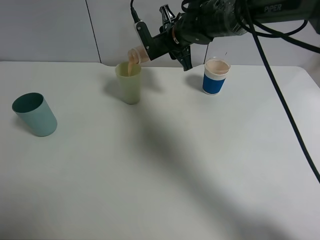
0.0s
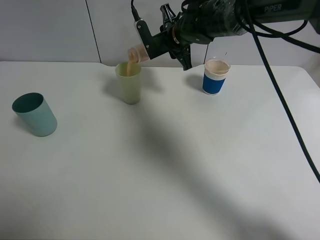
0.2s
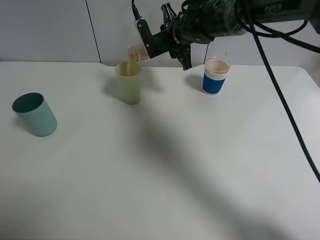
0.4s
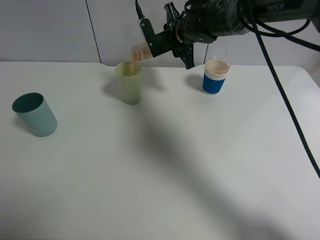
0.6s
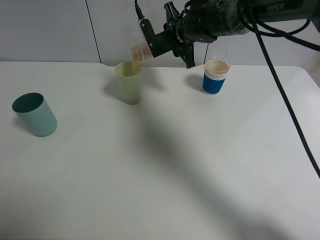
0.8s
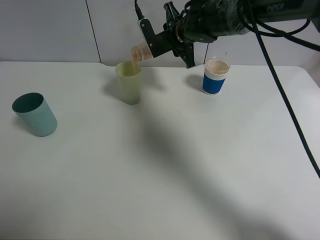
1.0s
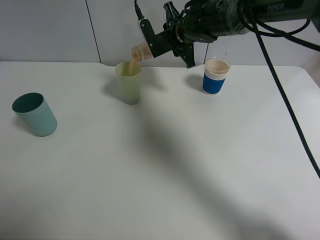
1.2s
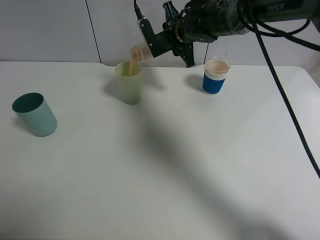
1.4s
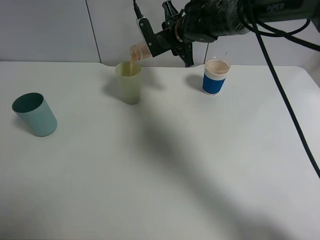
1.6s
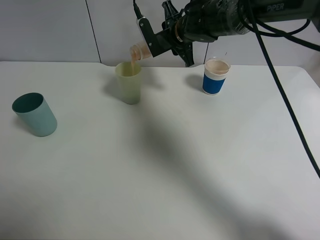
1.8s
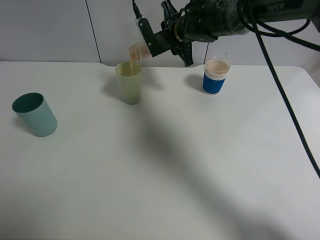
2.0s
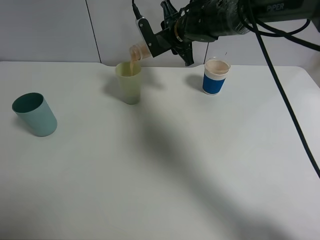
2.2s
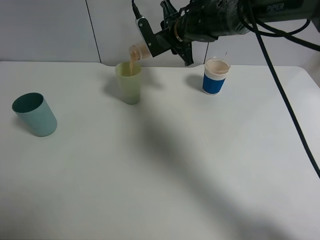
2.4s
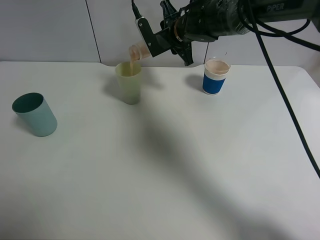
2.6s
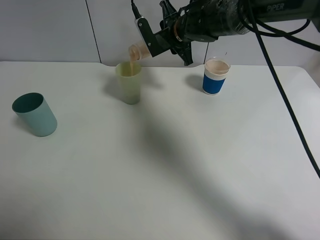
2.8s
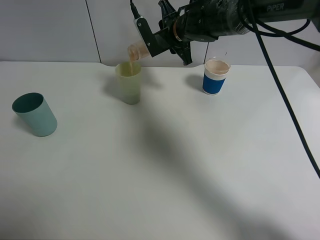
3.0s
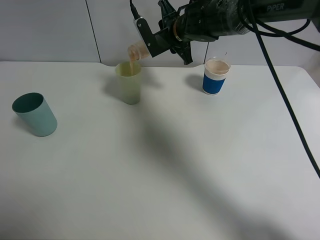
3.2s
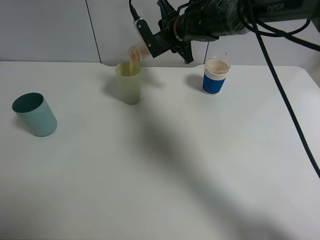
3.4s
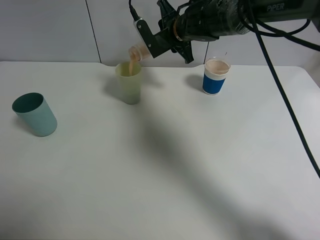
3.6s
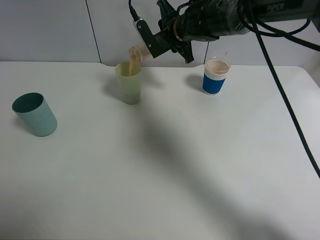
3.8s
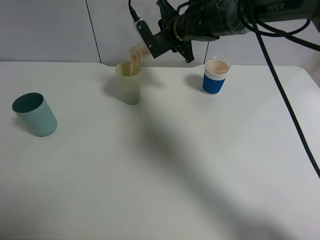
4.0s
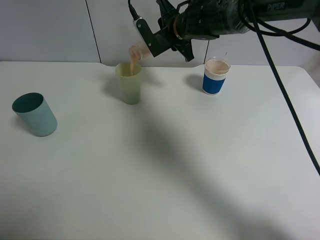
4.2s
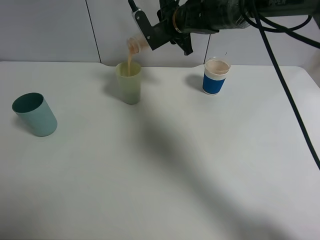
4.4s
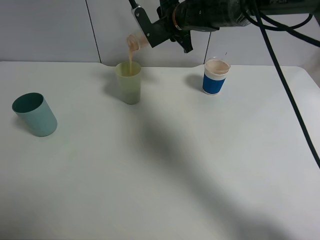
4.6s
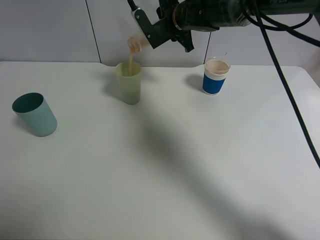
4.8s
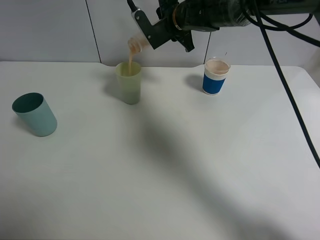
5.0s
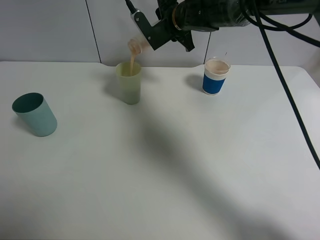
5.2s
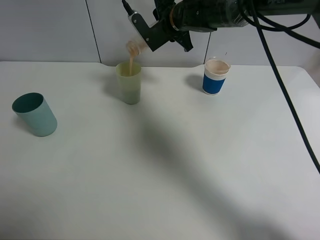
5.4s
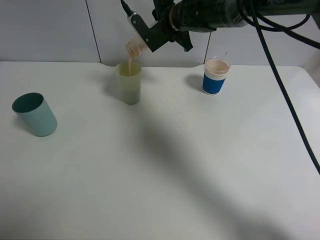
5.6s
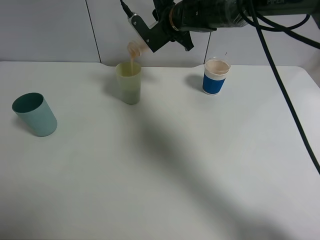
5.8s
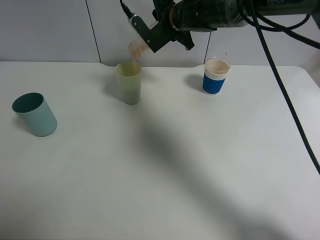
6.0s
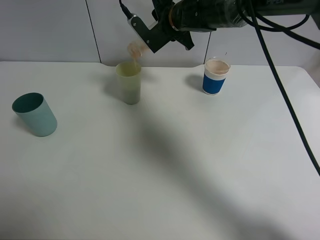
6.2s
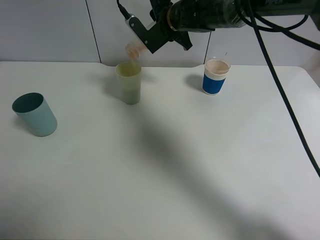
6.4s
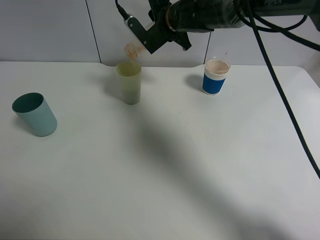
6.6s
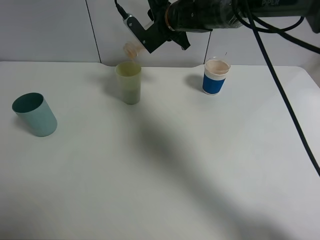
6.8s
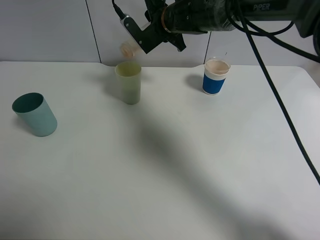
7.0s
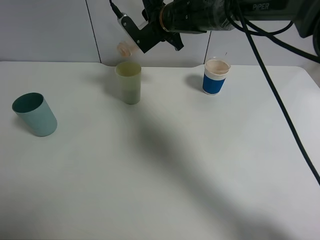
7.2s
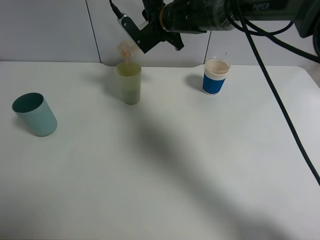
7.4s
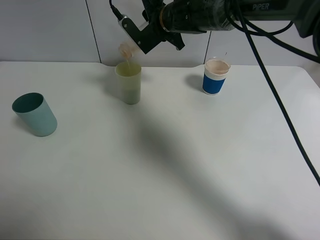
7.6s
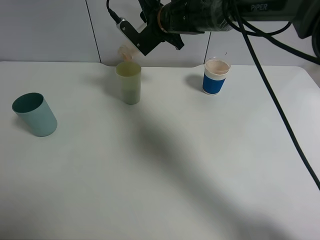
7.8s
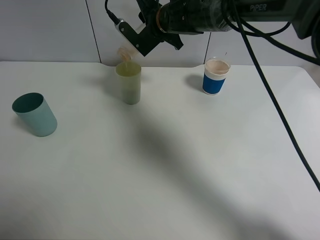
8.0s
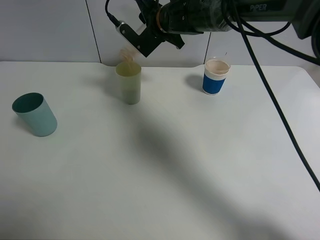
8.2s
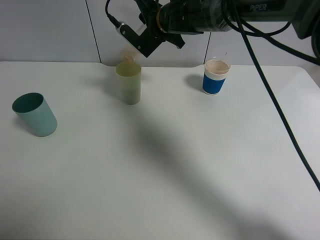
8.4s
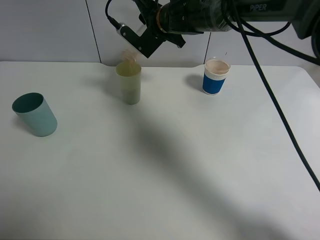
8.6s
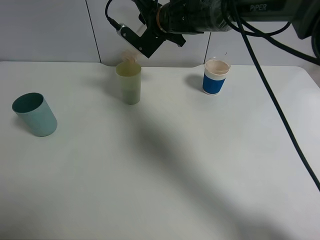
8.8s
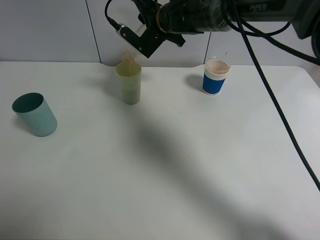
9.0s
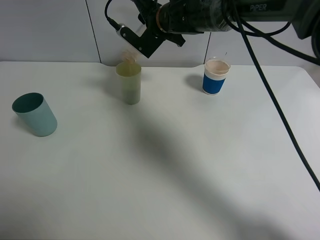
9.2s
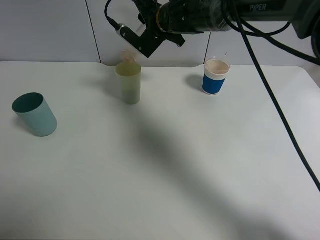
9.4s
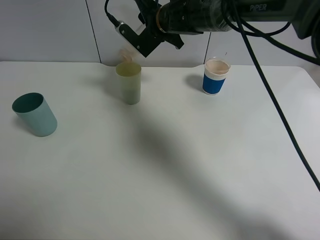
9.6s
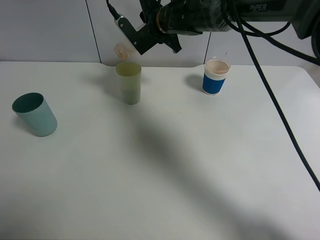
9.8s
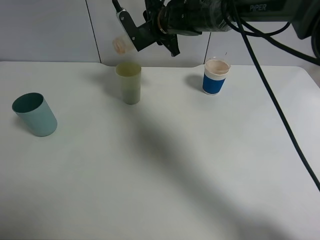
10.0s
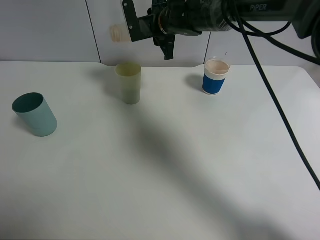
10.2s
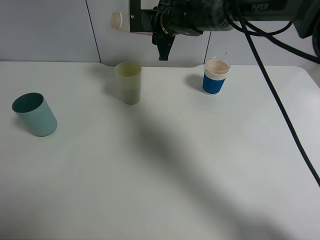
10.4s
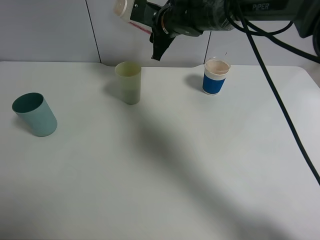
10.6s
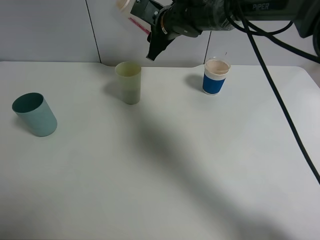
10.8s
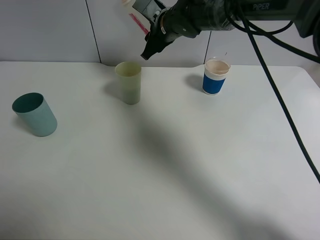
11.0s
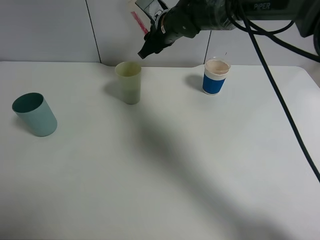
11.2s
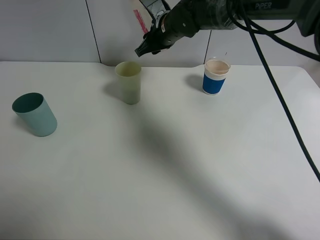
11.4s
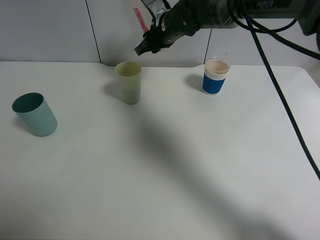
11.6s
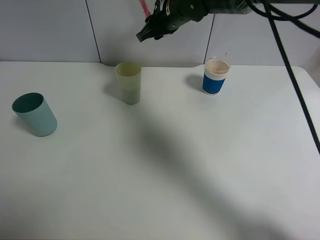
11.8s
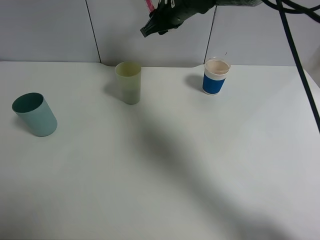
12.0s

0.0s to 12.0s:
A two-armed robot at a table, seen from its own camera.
Task of the whole recording: use a clamp to hold the bottle of the drink, pour the beverage into a random cup, then clamp the cup containing the drink and pour the drink into another random cup.
Step, 0.0s to 10.6s: Pour the drink into the green plastic cup with right gripper.
0.0s to 1.6s: The two grippers keep their place.
1.6s to 3.0s: Both grippers stay put.
3.0s to 7.6s: There are only small adjustments of the grippers.
7.6s to 9.0s: There are only small adjustments of the grippers.

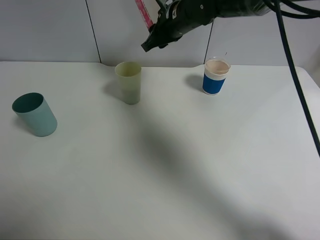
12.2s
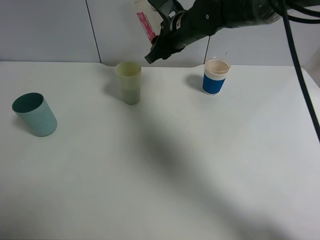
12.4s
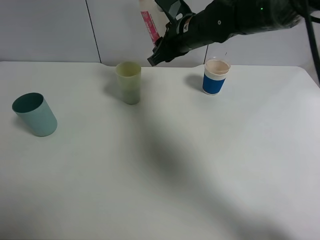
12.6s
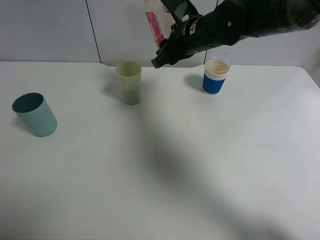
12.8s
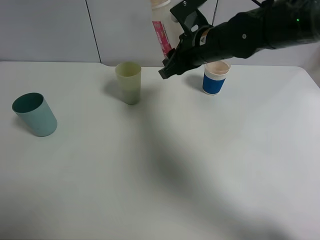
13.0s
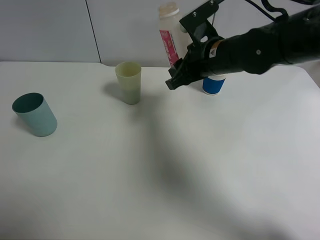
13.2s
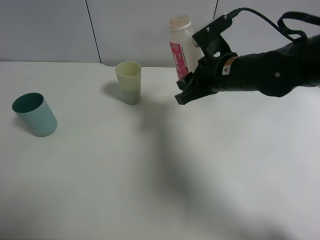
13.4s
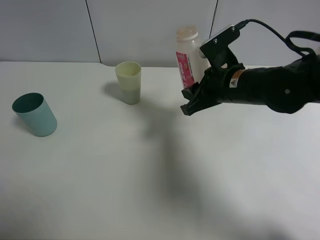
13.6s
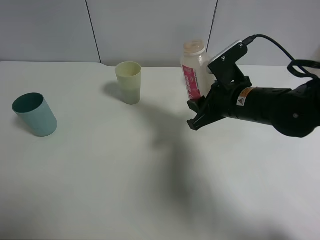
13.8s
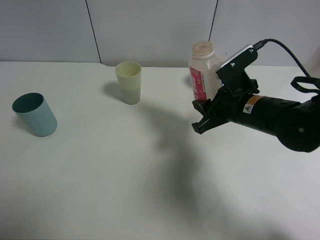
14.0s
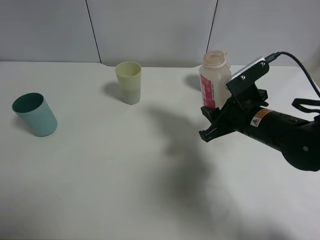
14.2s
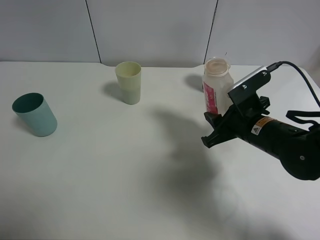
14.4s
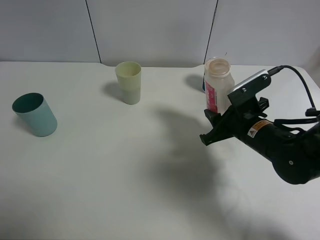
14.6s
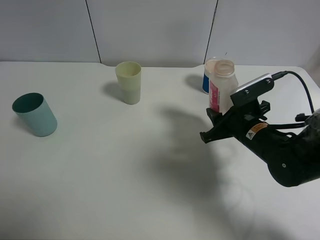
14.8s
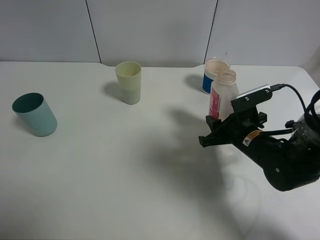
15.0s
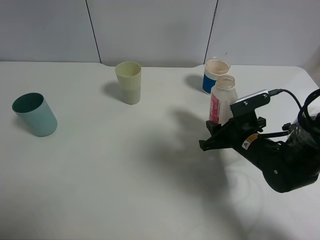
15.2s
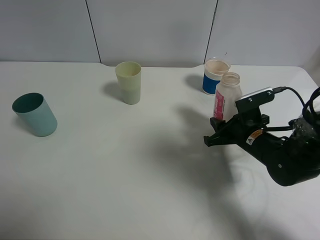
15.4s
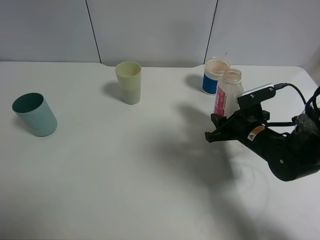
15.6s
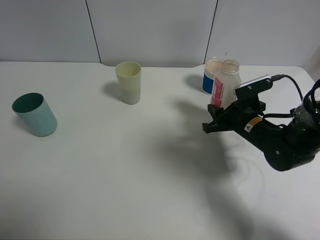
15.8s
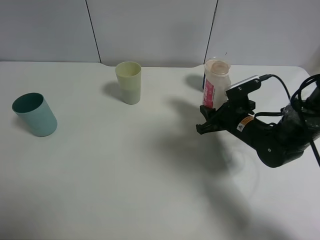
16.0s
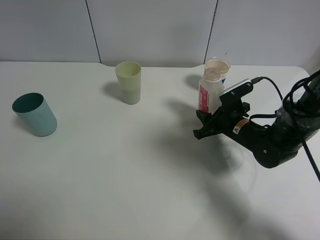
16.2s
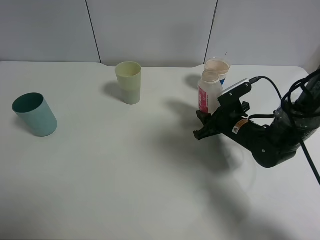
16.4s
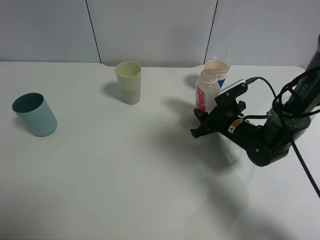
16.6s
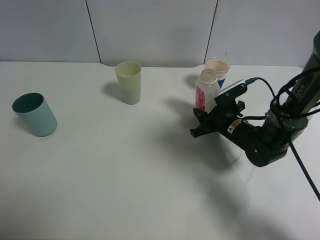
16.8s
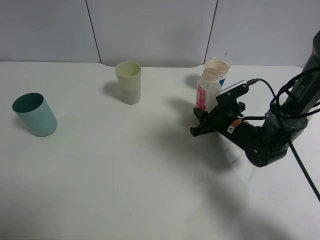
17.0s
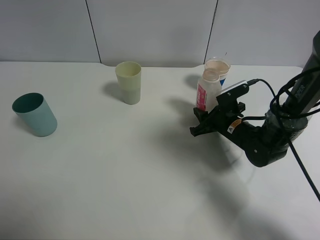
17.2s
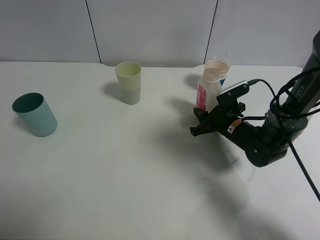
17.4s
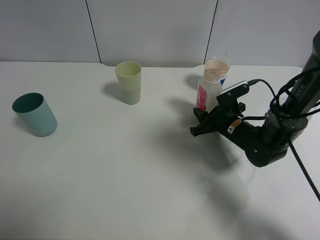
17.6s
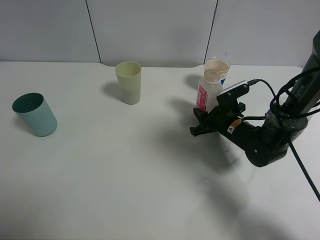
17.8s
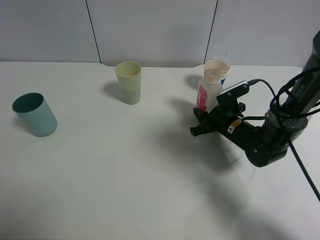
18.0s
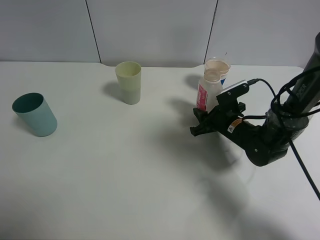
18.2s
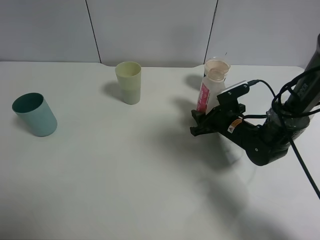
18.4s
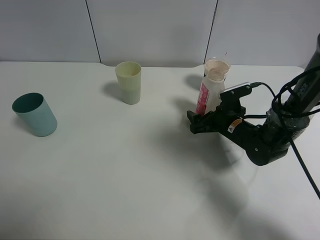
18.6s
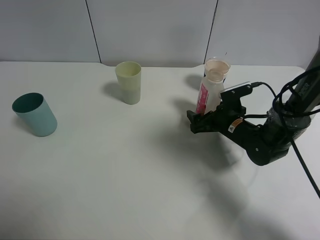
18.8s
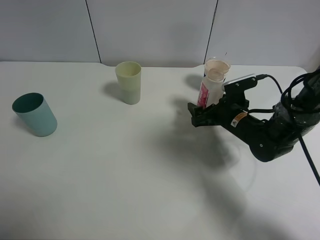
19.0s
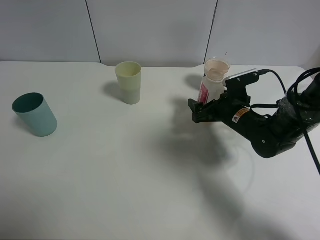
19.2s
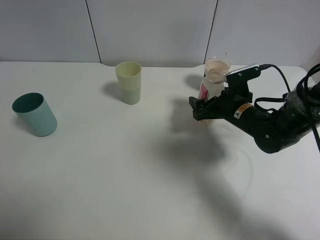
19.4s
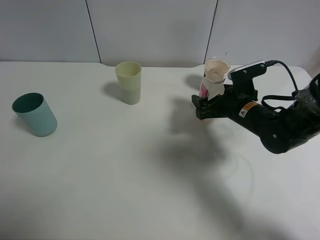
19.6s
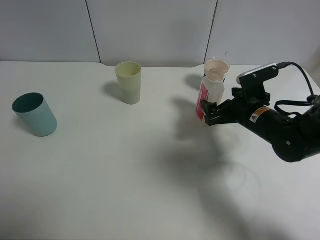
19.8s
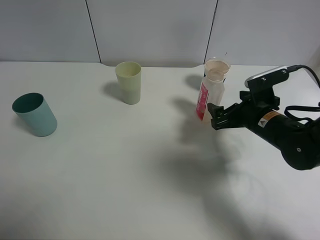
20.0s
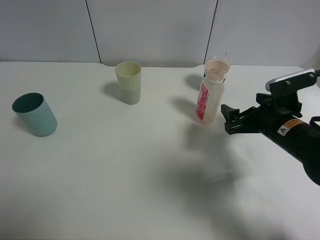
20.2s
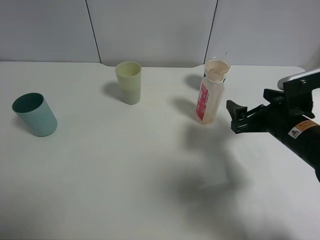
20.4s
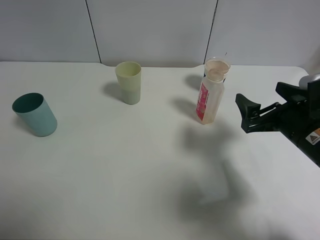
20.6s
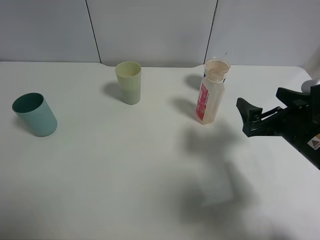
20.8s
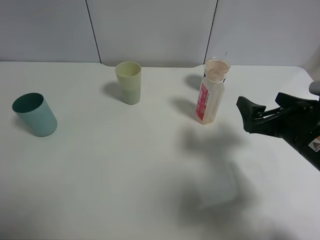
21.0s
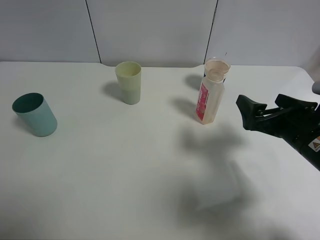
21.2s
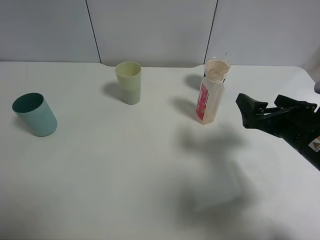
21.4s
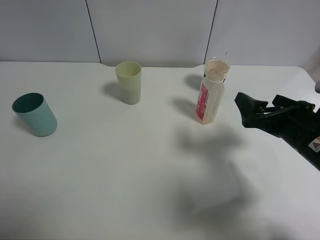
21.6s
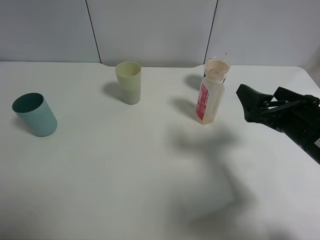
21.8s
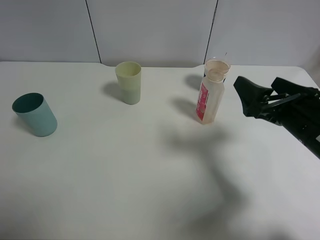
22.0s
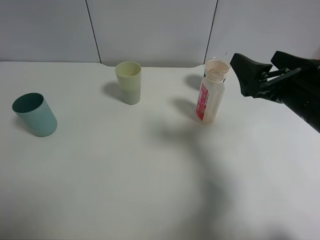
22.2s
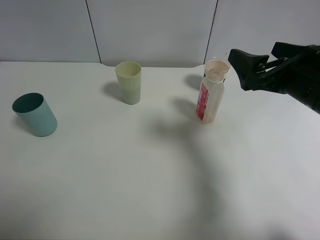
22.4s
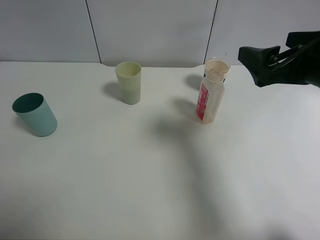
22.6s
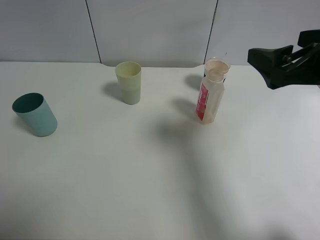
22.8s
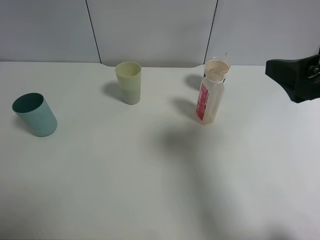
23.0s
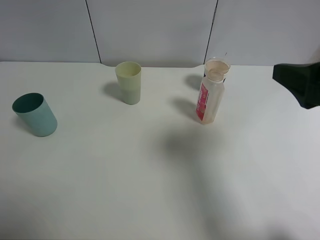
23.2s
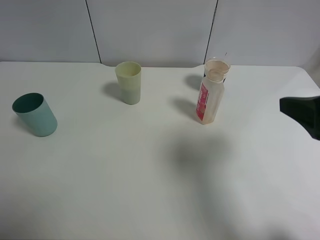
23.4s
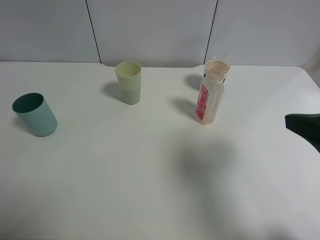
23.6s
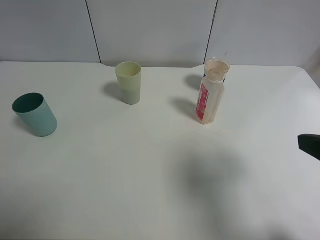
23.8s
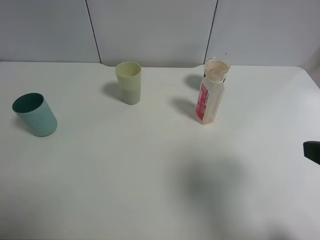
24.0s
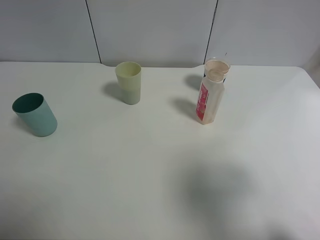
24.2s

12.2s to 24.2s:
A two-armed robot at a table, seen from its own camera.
Task of the whole recording: use a clamp to hold the bottle of the drink, pour the beverage into a random cup, then clamp the cup containing the drink and pour the drink into another random cup.
Step, 12.2s to 20.0s: Place the drink bottle on the table with right gripper.
12.2s to 13.8s: The right gripper shifts roughly 20 cm backward, to the right and downward.
13.8s to 15.2s: The right gripper travels downward by roughly 10 cm.
15.2s to 16.6s: The right gripper shifts roughly 5 cm forward.
16.6s to 18.2s: The two grippers keep their place.
18.2s to 19.8s: The right gripper shifts roughly 5 cm upward, and opens.
19.8s to 21.2s: The right gripper is displaced backward by roughly 10 cm.
21.2s to 22.6s: The right gripper is displaced upward by approximately 10 cm.
22.6s to 24.2s: The right gripper moves backward, approximately 15 cm.
